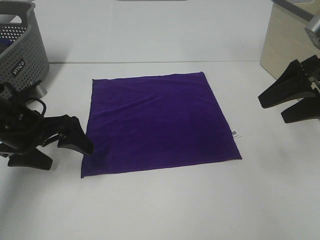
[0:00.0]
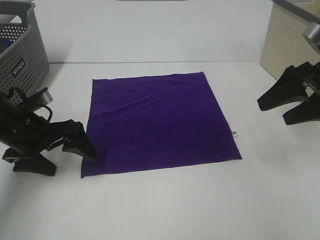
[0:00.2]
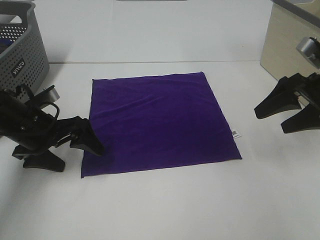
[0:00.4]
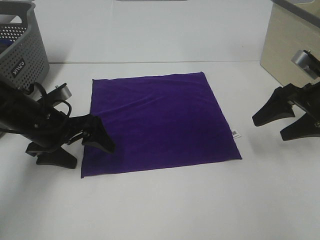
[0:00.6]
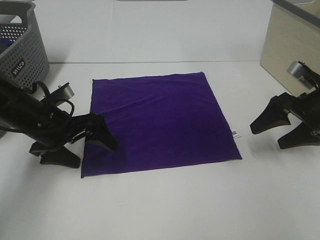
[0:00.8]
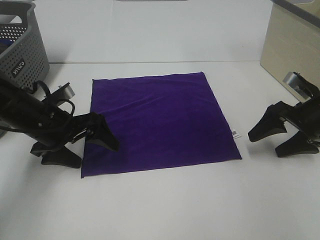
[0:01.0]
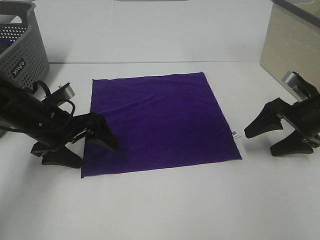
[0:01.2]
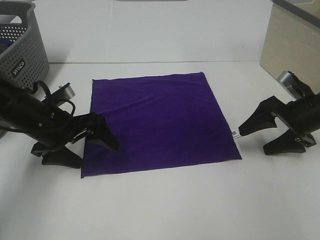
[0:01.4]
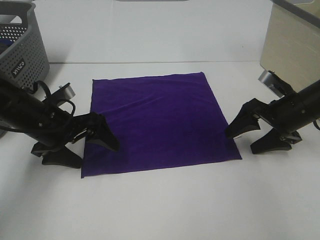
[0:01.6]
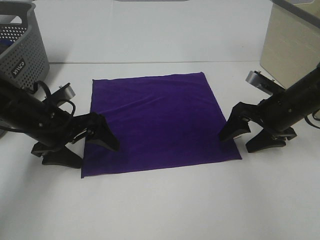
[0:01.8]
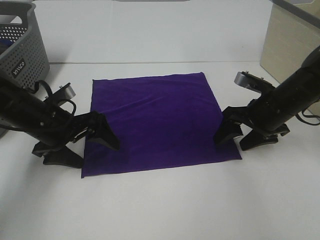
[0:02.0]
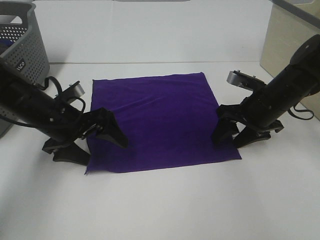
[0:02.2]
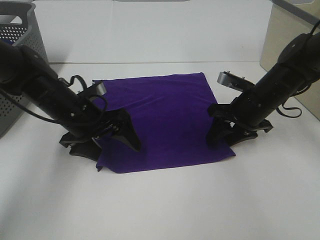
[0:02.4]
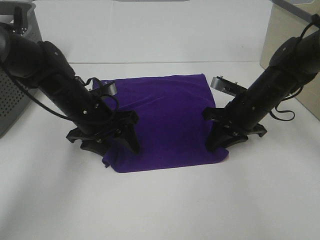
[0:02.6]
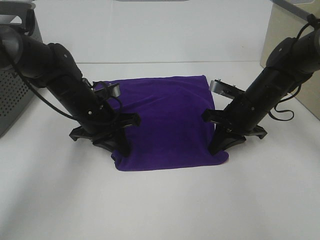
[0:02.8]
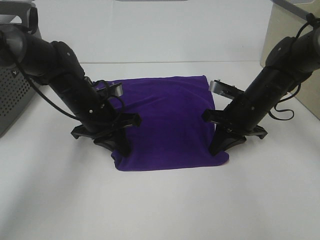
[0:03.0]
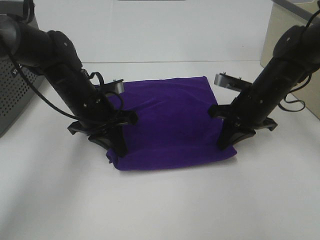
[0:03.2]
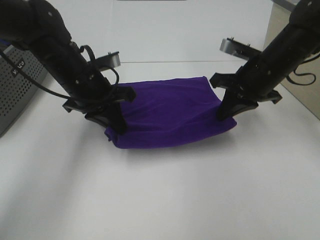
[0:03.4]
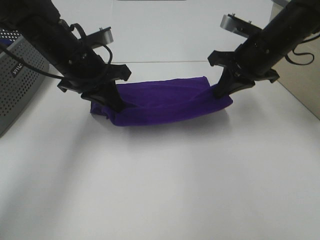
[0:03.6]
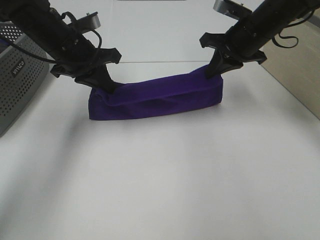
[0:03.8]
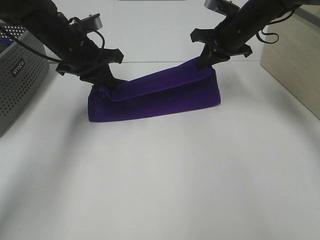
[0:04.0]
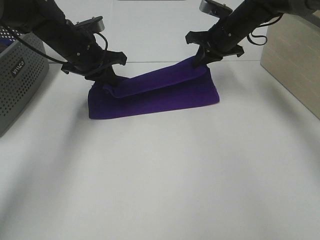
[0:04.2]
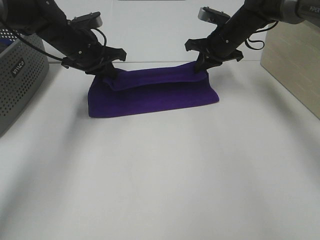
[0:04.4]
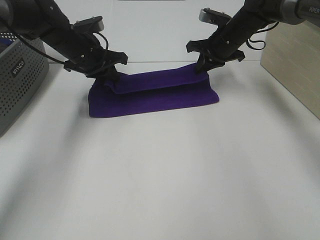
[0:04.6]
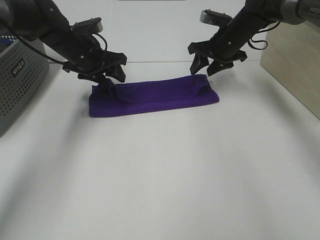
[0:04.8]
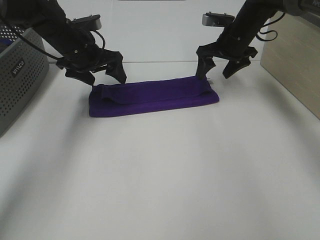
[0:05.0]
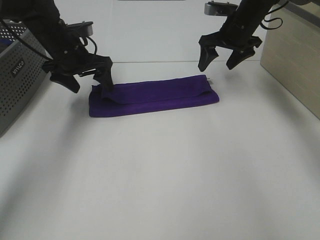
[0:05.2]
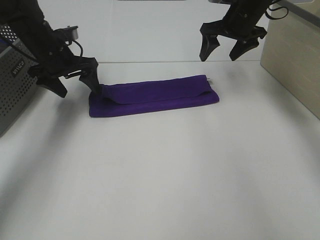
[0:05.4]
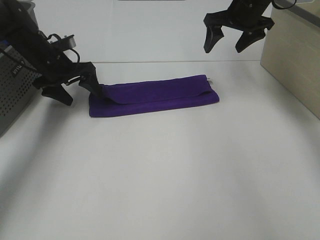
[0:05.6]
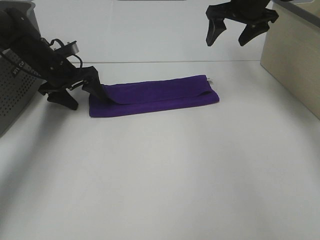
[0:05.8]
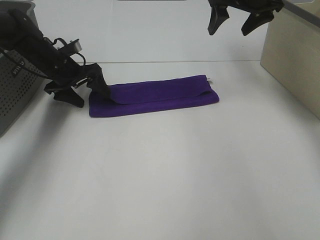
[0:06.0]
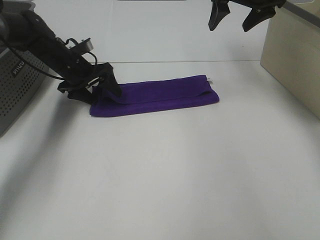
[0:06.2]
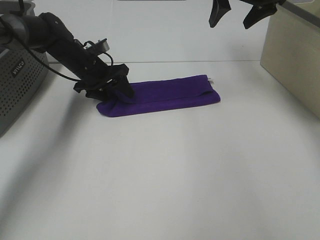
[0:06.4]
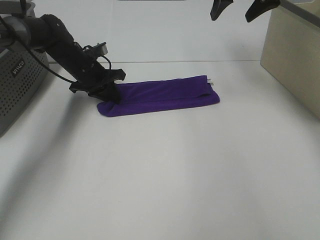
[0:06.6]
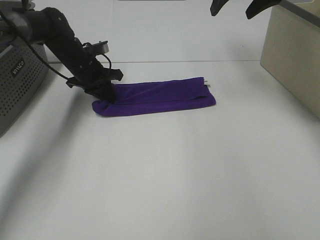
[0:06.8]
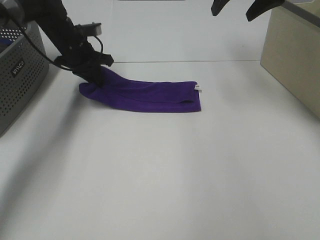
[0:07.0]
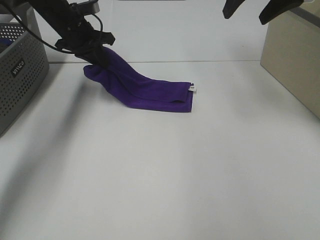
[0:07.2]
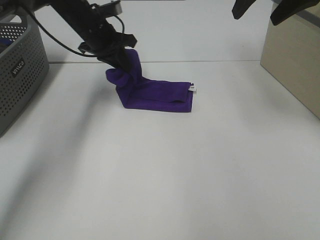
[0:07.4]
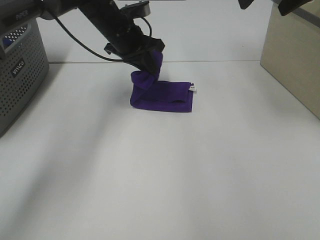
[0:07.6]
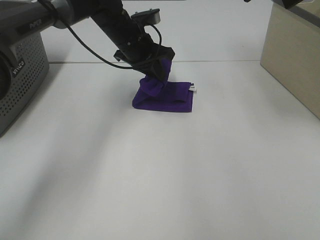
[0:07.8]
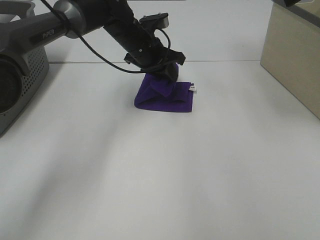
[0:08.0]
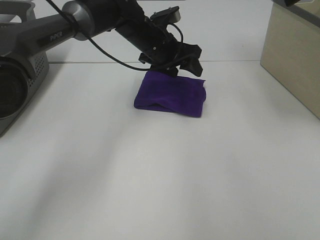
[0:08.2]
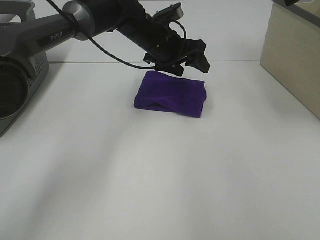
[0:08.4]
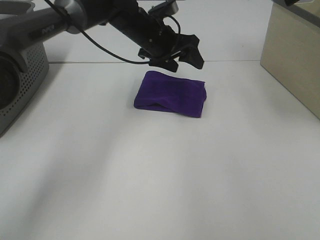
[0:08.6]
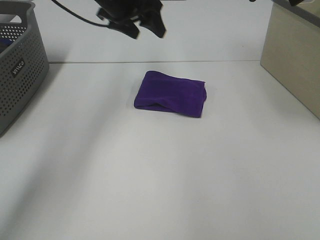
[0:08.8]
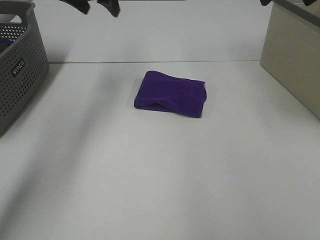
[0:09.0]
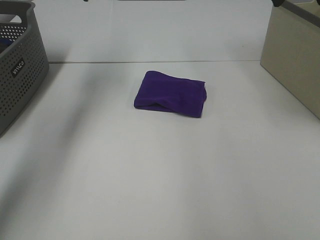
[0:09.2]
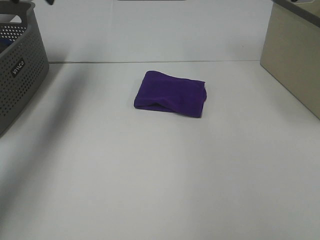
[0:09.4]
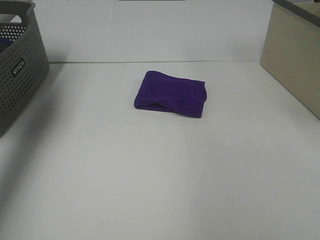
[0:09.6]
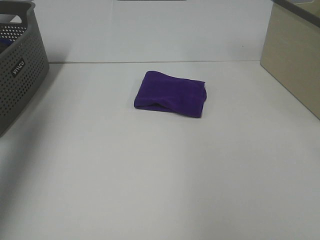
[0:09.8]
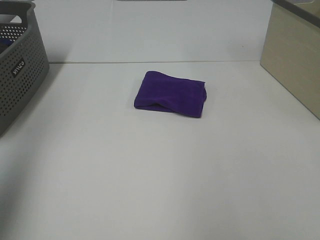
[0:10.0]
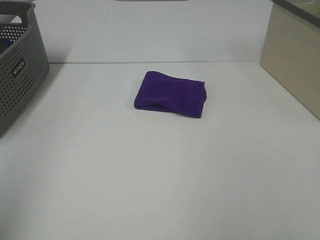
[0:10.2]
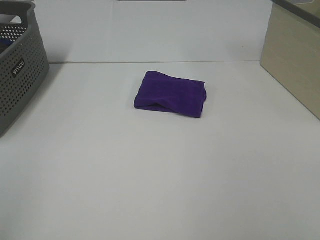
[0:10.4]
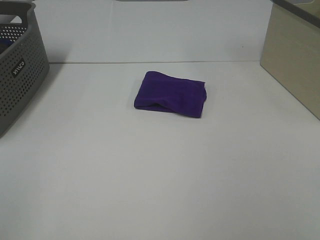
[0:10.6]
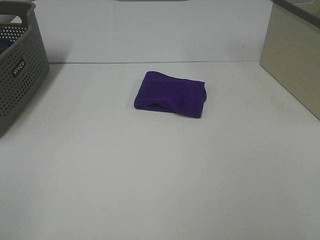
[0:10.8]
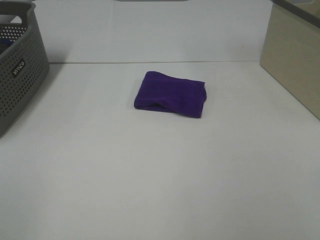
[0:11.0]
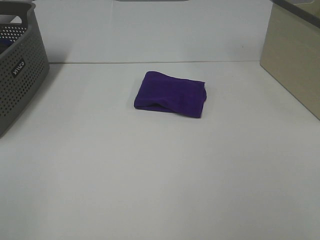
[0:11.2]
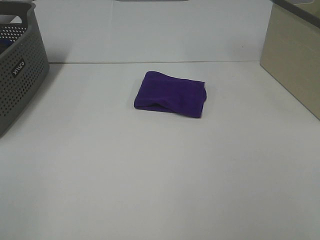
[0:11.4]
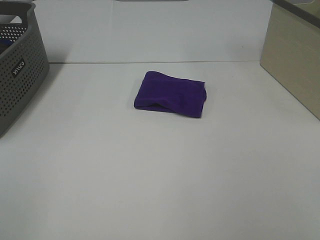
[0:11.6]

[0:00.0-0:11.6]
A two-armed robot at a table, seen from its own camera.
Task of the whole recording: Fold towels.
Step, 0:00.0 to 0:02.6: Left hand: grab the bottom left corner of purple towel.
Step, 0:00.0 to 0:02.6: Right hand: grab the bottom right corner of purple towel.
Step, 0:02.8 to 0:04.6: Left hand: fold the purple towel up.
Step, 0:02.8 to 0:04.6: Right hand: fold the purple towel up.
Step, 0:04.8 to 0:08.0: Left hand: fold the purple towel from left to right.
0:00.0 to 0:01.4: The right gripper is displaced downward by roughly 10 cm.
0:01.4 to 0:02.8: The right gripper heads to the left, covering about 10 cm, and closes, while the left gripper travels to the right and forward by approximately 10 cm, and closes up.
0:02.8 to 0:04.4: Both grippers travel together forward and upward, approximately 15 cm.
0:04.4 to 0:05.8: The right gripper travels upward by approximately 10 cm, and opens, while the left gripper travels to the left and downward by some 10 cm, and opens.
0:05.8 to 0:07.2: The left gripper goes roughly 10 cm upward and to the right, and closes, while the right gripper shifts approximately 15 cm backward and upward.
0:07.2 to 0:08.8: The right gripper changes place by some 5 cm; the left gripper heads to the right and upward, covering roughly 10 cm, and opens up.
0:08.8 to 0:10.2: The right gripper moves backward, about 30 cm; the left gripper moves backward and to the left, about 50 cm.
